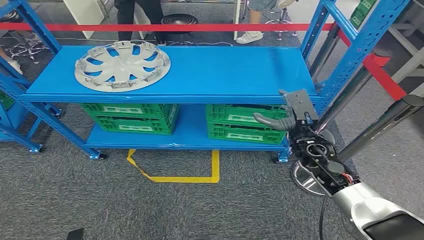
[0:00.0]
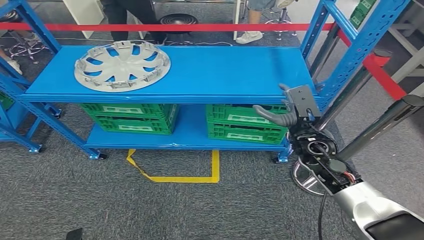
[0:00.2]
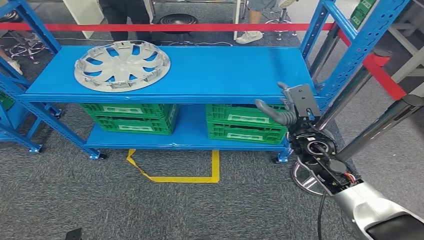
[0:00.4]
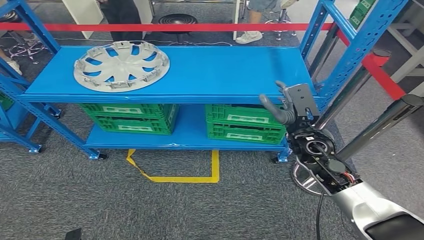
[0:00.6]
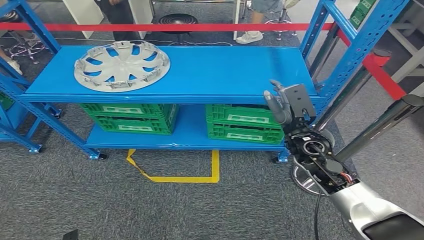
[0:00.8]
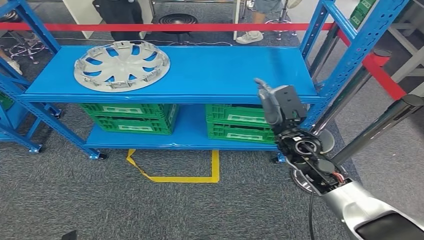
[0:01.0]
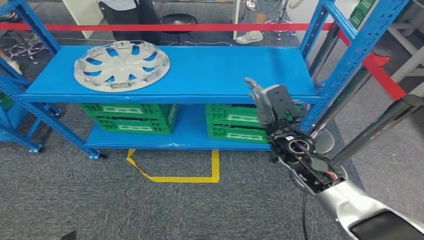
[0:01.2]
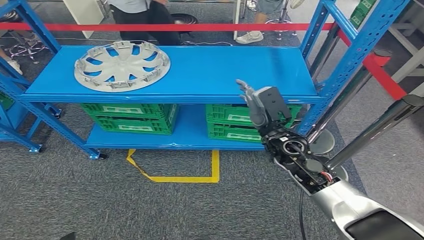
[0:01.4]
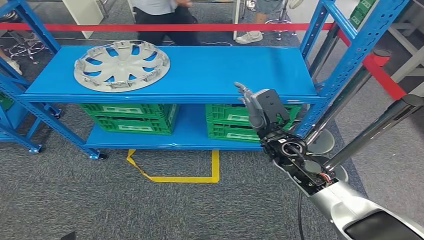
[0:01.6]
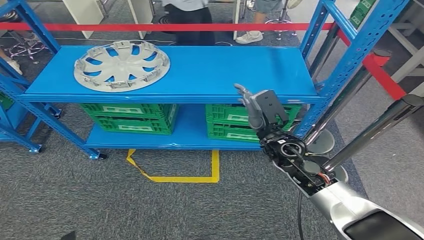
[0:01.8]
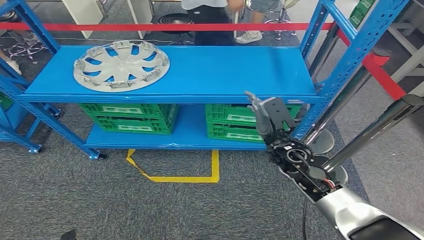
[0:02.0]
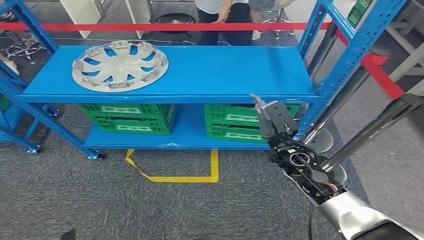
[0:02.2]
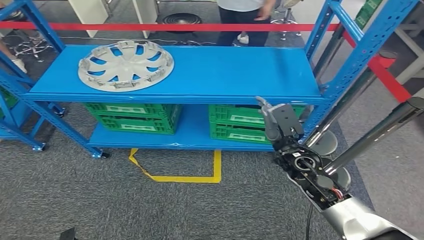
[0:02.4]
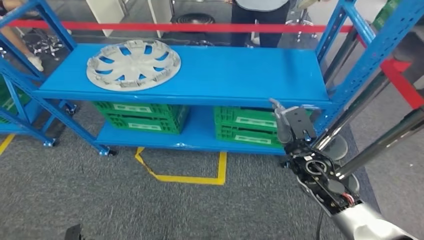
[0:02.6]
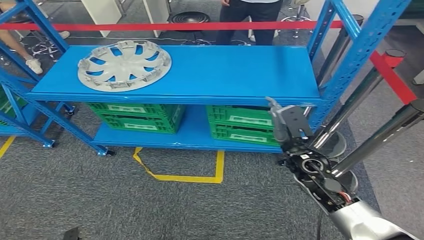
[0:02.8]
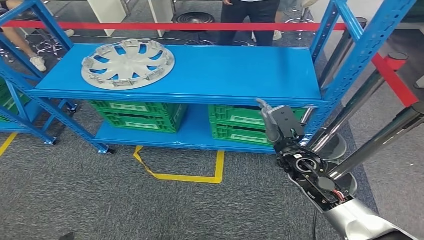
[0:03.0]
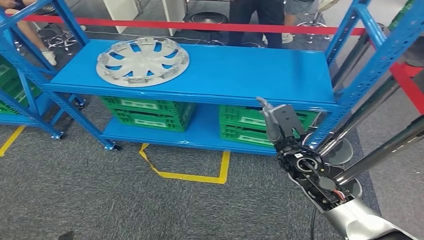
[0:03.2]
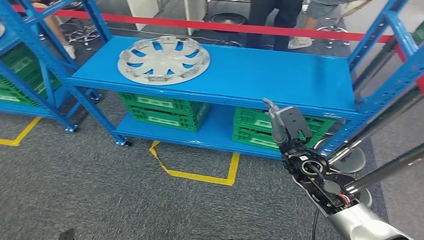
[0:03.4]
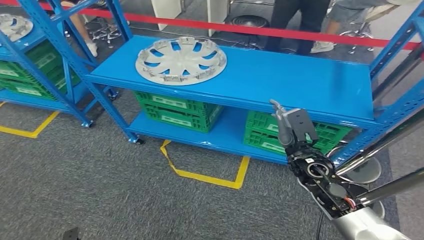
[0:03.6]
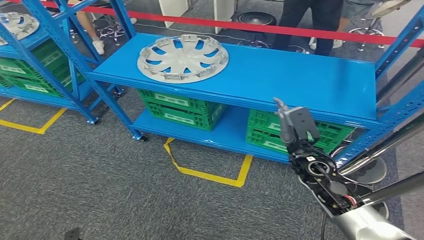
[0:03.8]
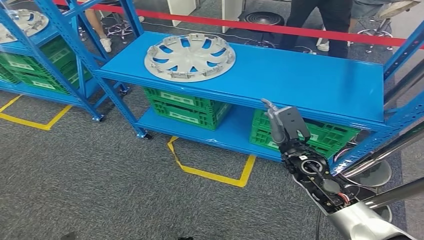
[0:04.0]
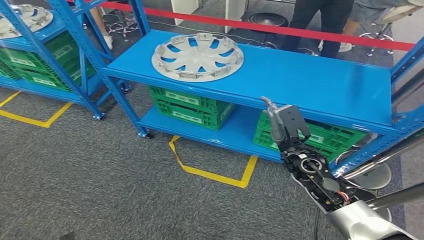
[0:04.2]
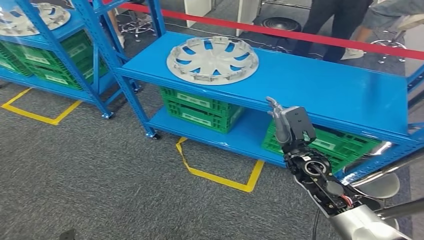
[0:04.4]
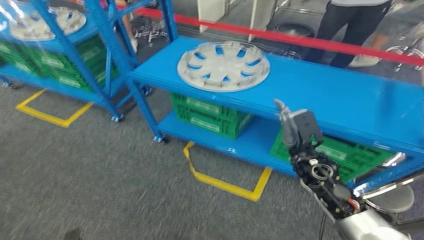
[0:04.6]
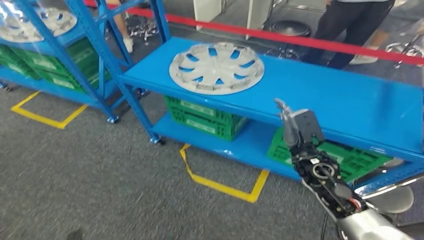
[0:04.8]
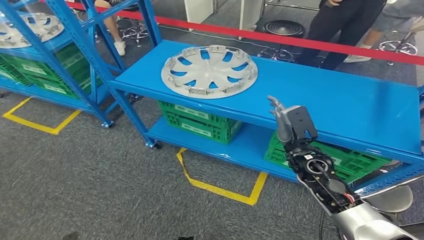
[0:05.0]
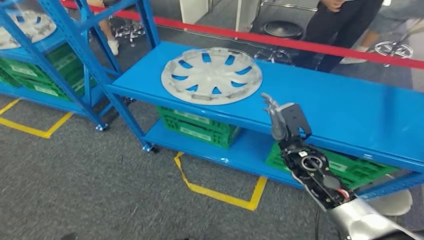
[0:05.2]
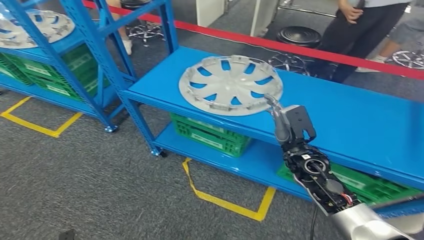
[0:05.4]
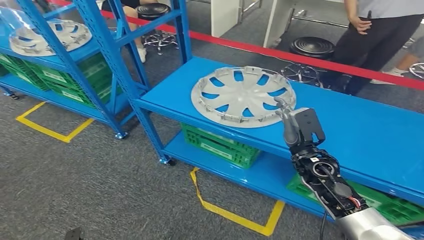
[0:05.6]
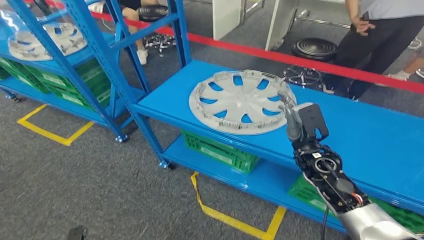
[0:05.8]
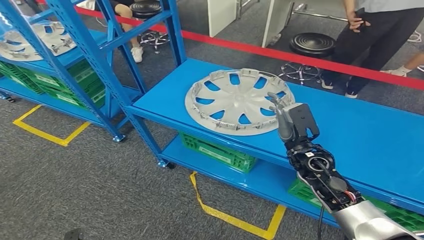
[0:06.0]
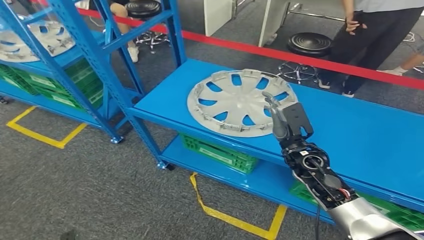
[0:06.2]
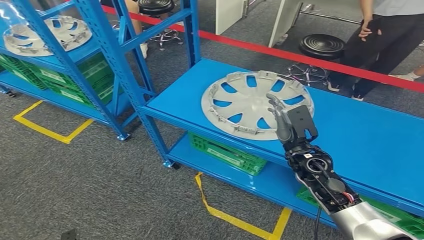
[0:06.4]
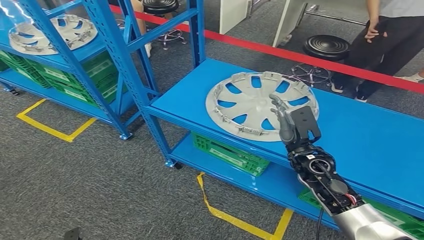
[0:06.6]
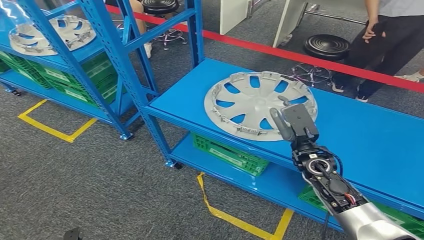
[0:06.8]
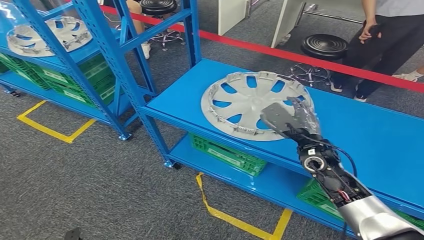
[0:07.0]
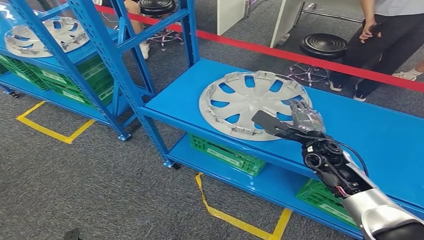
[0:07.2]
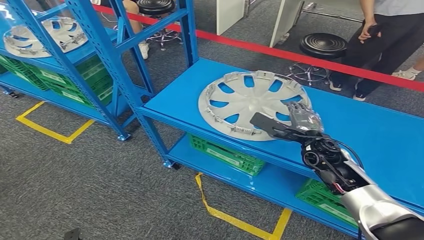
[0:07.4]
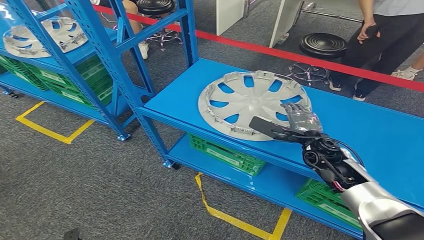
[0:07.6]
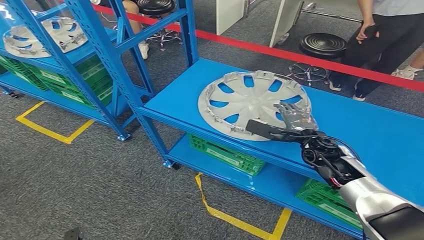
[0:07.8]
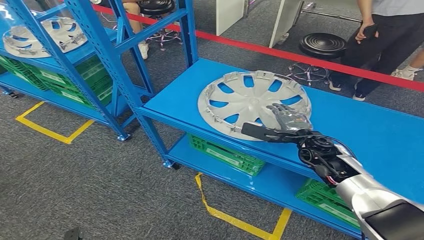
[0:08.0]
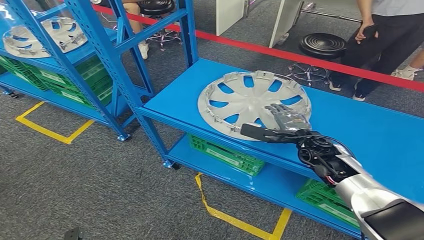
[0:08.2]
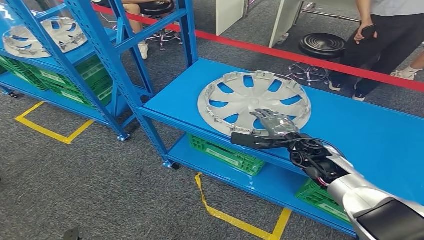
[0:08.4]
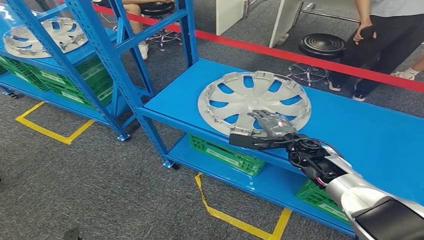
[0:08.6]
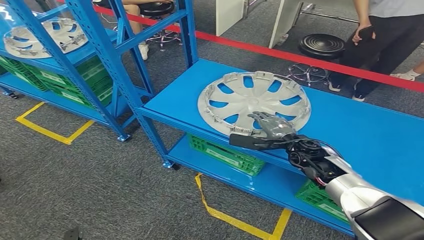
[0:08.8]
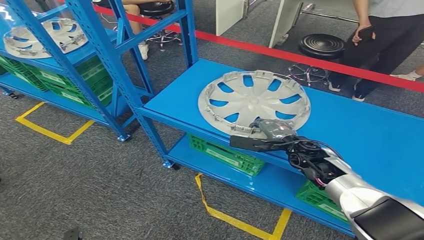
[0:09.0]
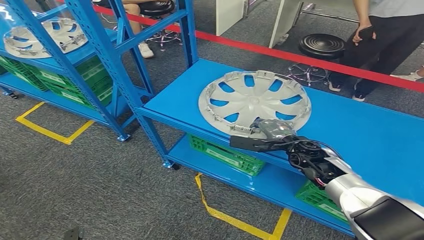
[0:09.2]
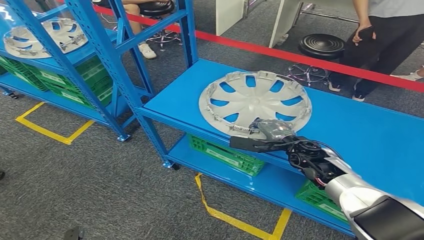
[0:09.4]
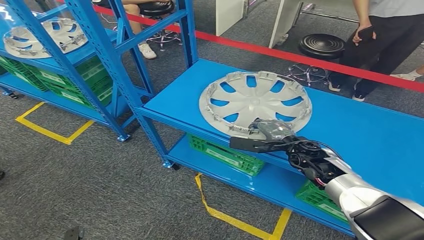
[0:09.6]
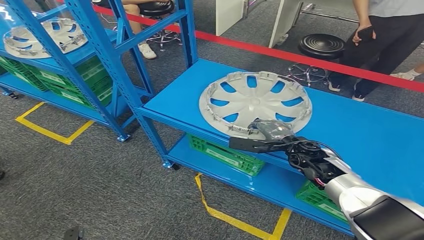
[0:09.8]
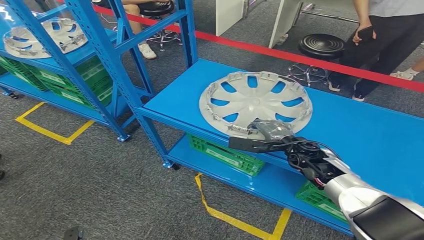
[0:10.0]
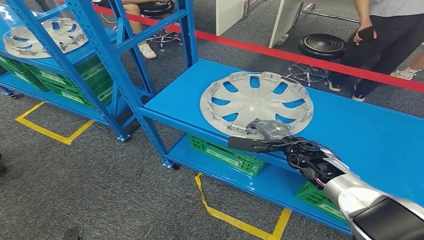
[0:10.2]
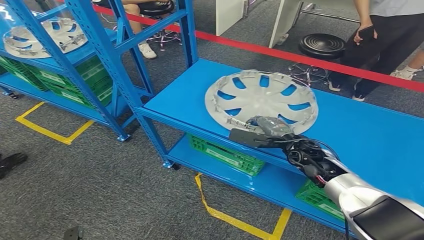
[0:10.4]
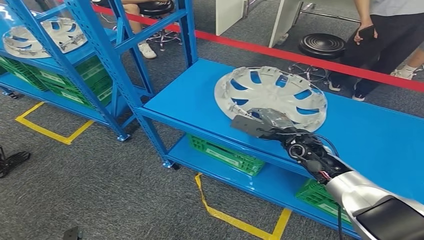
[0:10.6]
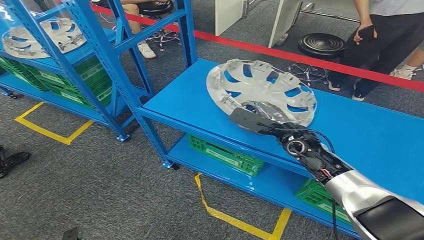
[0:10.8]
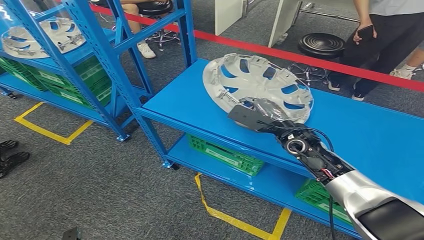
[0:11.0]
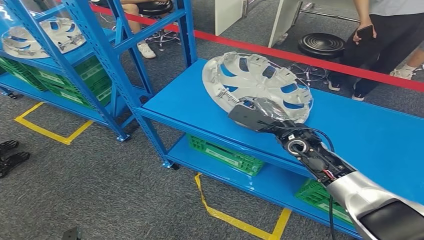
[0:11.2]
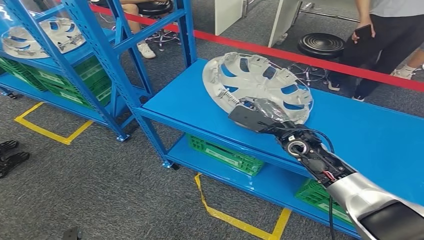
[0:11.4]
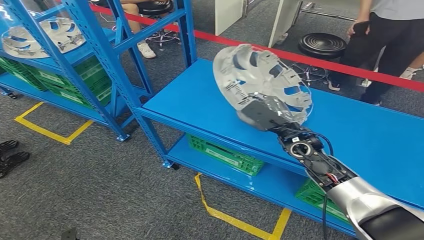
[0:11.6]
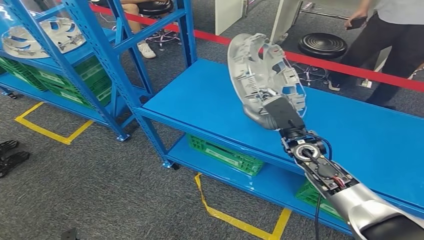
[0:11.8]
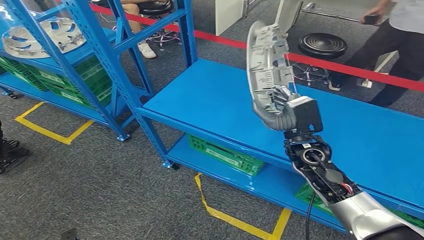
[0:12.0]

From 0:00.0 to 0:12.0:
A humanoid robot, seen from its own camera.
From 0:09.0 to 0:10.4: The hands make only small movements.
From 0:10.4 to 0:12.0: The right hand is displaced upward by some 5 cm.

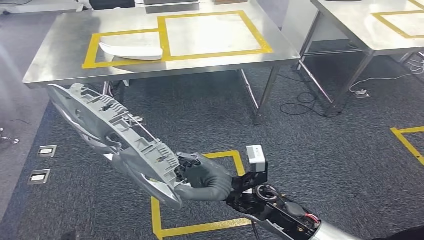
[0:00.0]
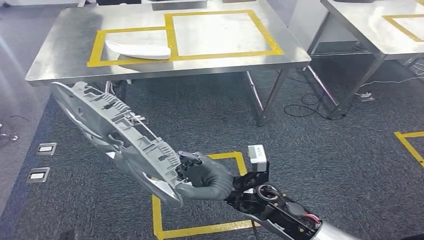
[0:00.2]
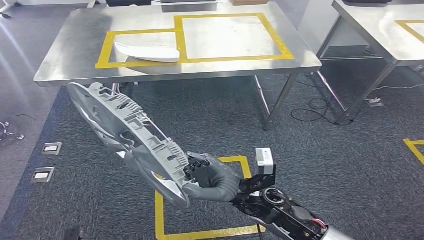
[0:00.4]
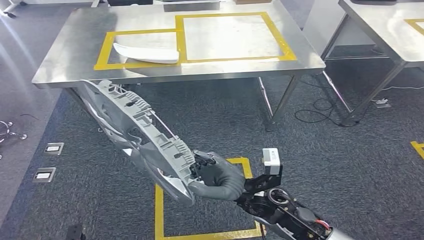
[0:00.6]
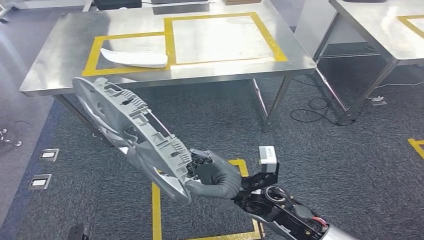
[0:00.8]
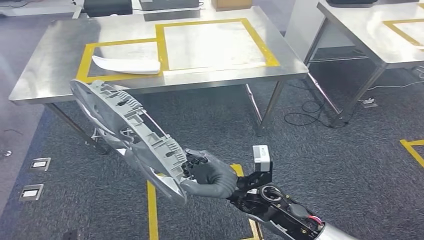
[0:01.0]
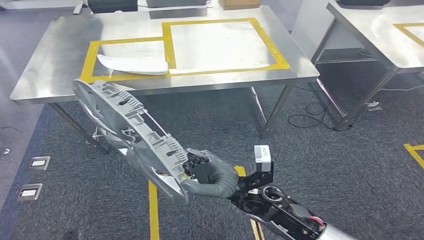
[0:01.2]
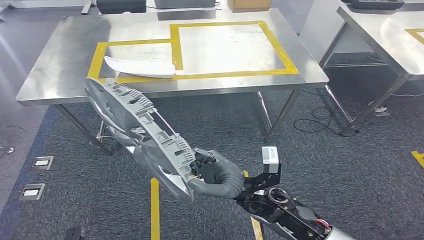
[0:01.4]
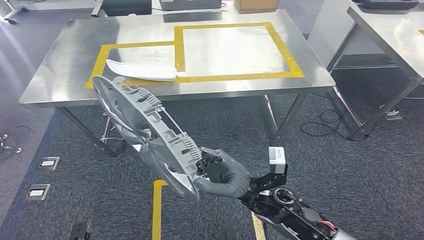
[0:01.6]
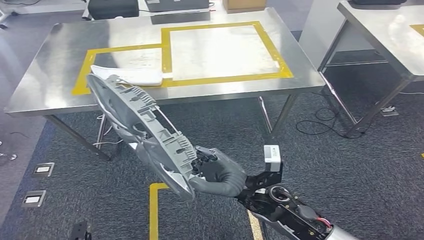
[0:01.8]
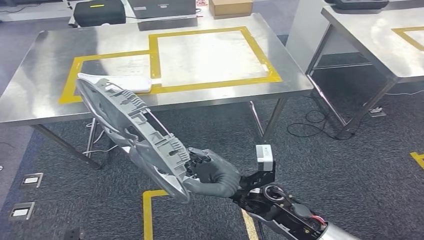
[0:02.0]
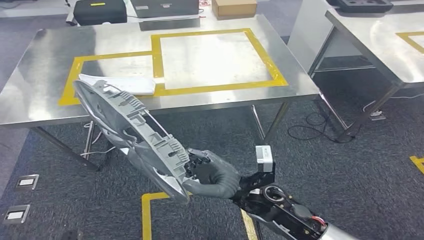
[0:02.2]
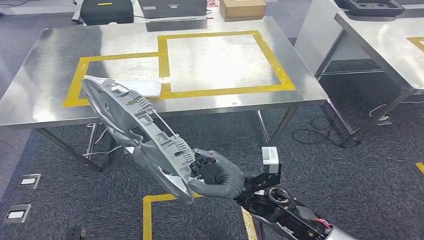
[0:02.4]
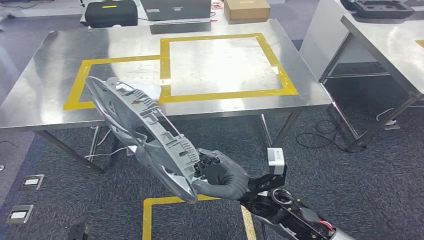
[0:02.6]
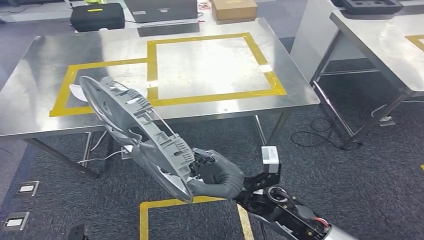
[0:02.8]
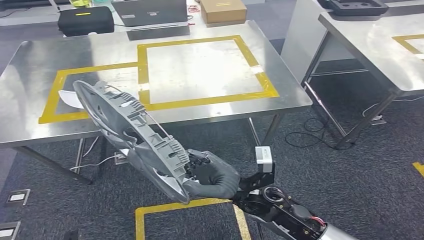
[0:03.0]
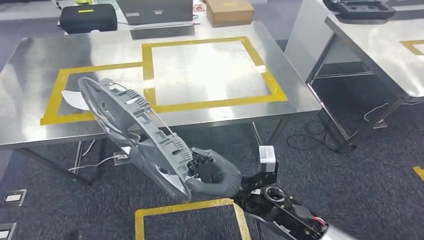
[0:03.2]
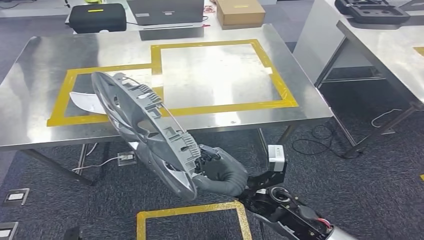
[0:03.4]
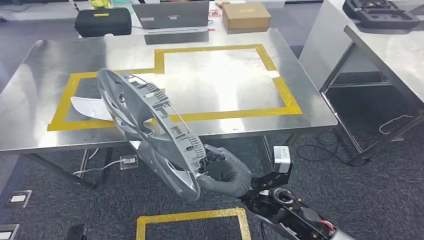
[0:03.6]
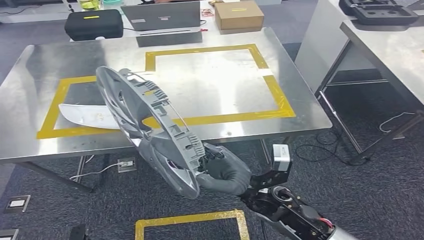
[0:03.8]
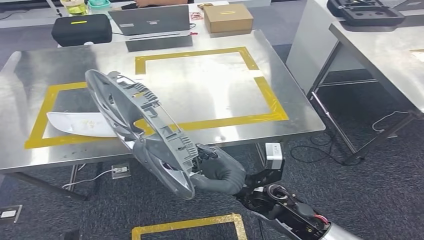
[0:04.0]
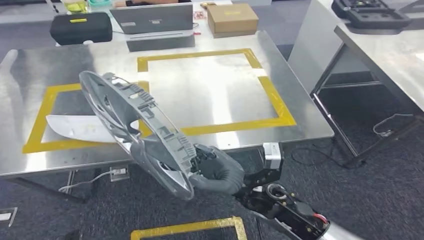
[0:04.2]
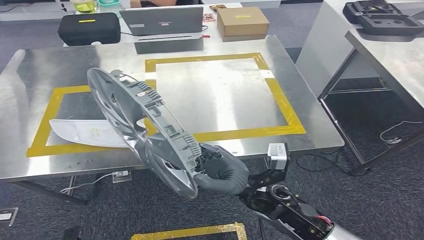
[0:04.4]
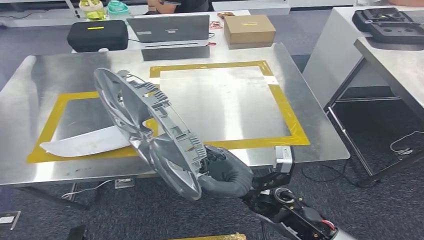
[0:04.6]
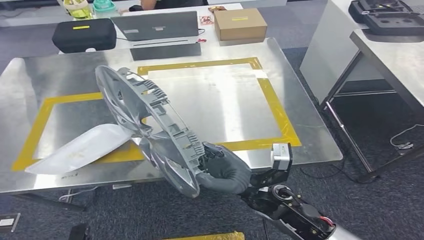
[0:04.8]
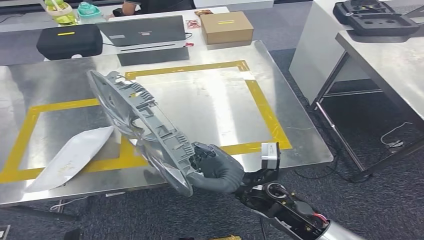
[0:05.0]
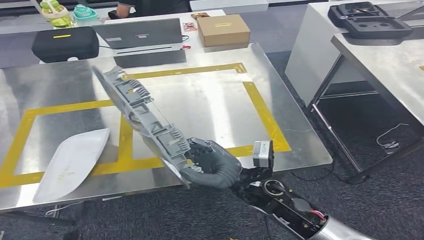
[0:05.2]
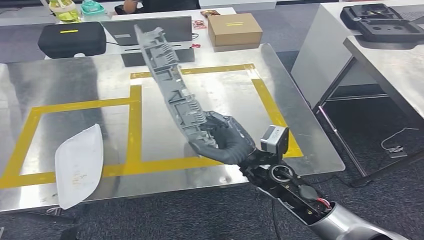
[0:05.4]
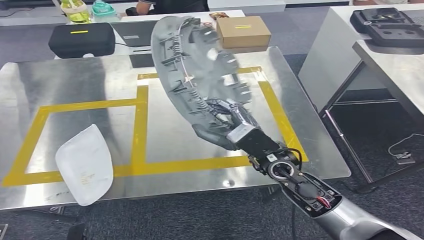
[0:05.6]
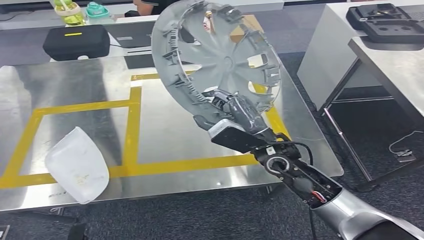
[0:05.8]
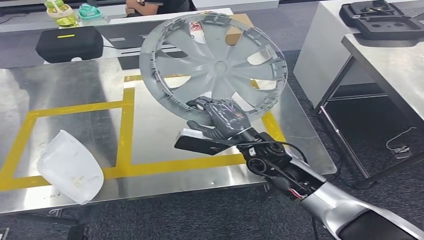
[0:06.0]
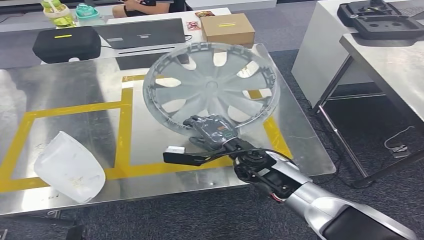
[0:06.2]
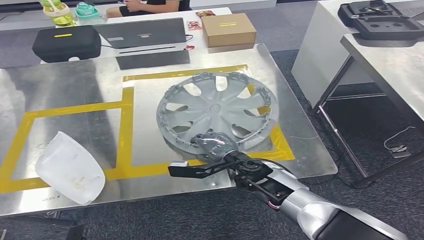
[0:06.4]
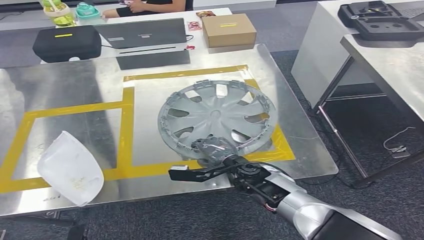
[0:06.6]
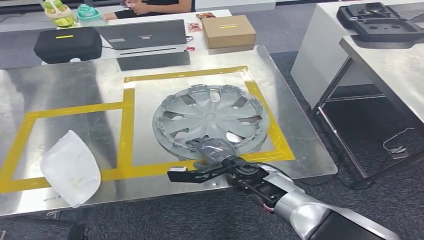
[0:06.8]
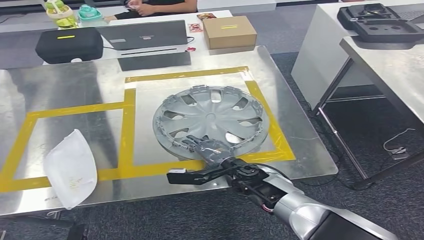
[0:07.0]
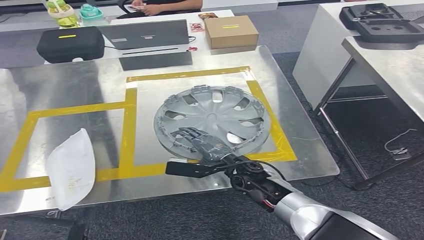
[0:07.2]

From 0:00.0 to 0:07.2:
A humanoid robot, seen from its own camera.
Step, from 0:00.0 to 0:04.6: Move the small component to the workbench.
